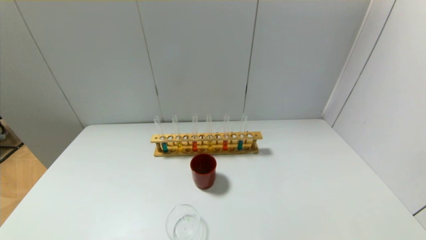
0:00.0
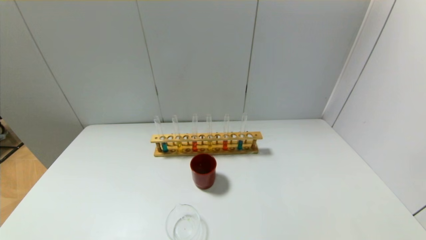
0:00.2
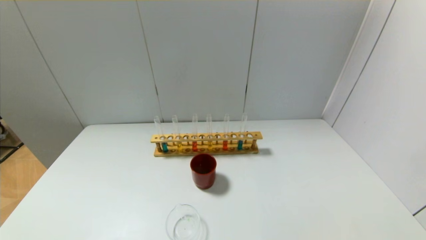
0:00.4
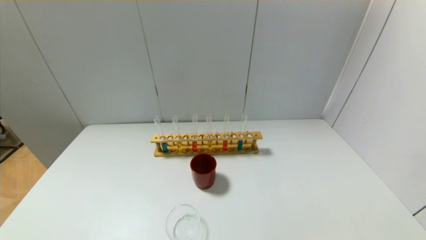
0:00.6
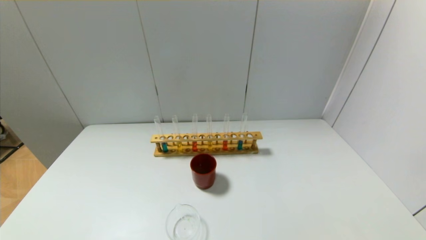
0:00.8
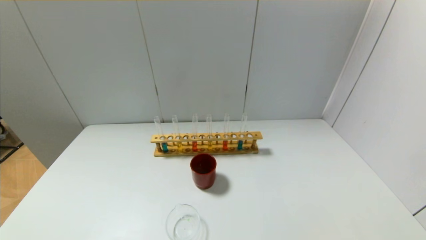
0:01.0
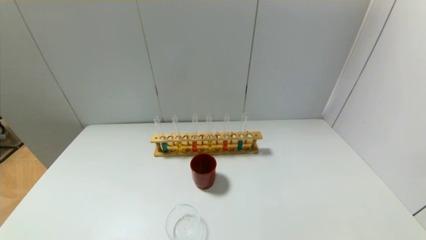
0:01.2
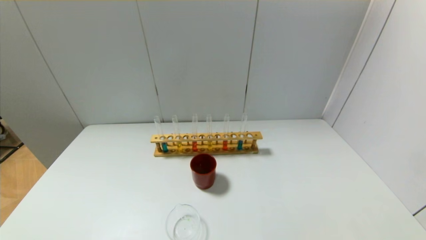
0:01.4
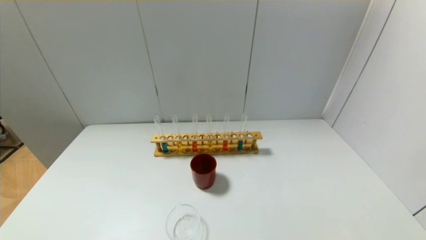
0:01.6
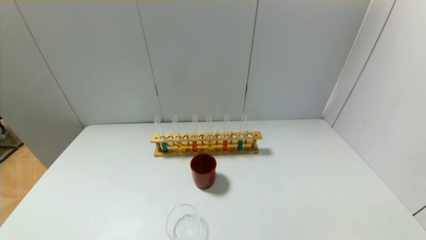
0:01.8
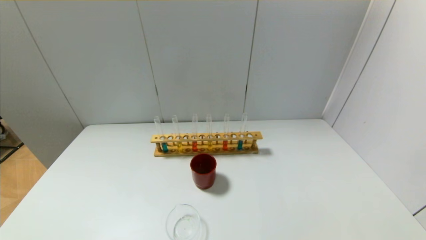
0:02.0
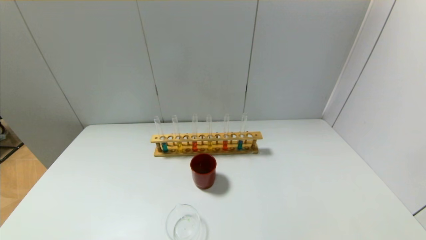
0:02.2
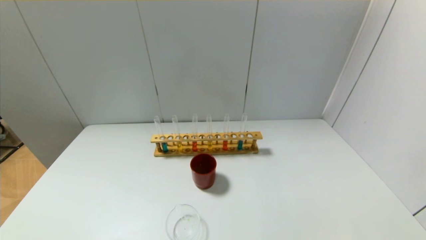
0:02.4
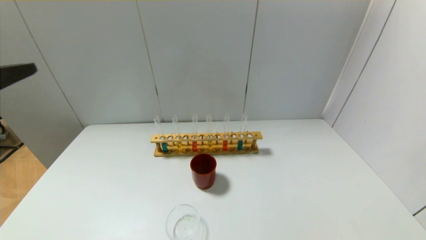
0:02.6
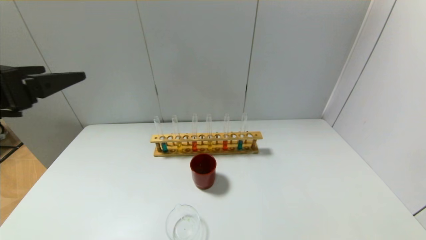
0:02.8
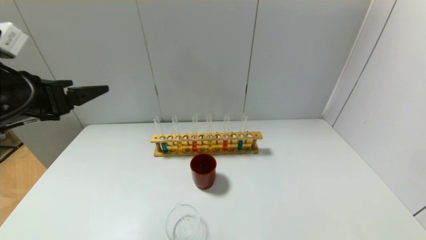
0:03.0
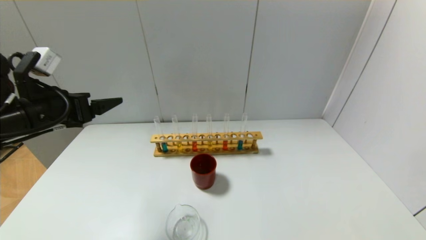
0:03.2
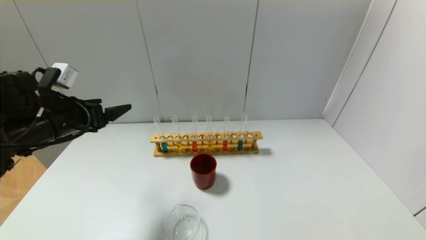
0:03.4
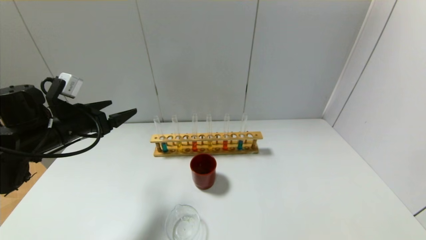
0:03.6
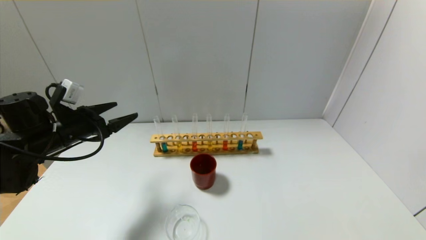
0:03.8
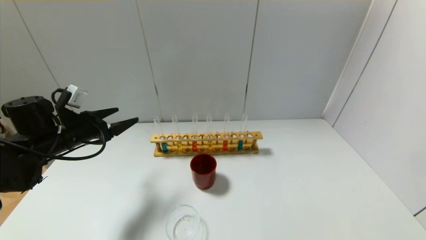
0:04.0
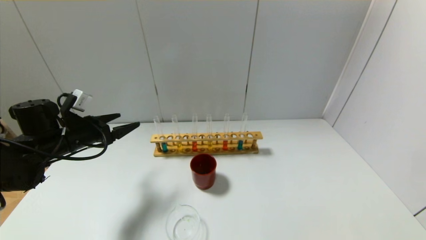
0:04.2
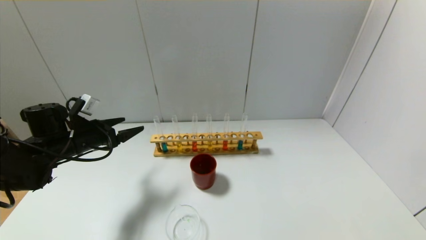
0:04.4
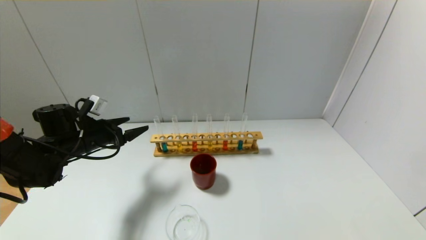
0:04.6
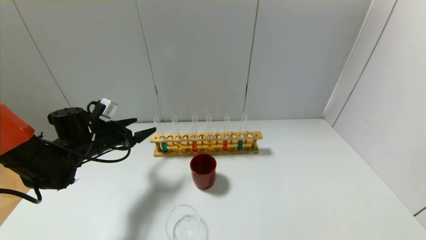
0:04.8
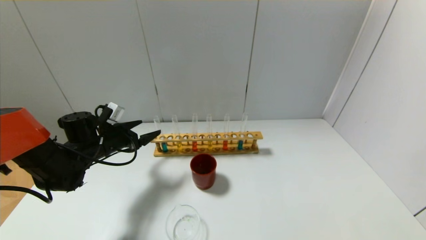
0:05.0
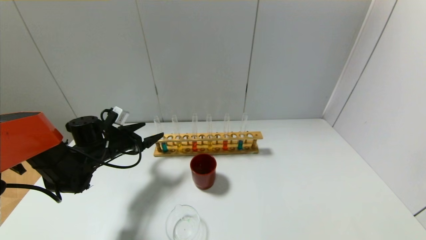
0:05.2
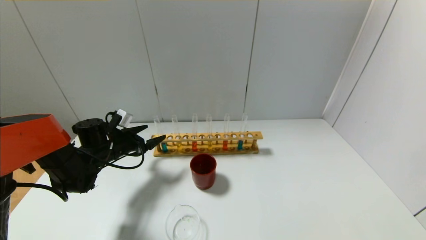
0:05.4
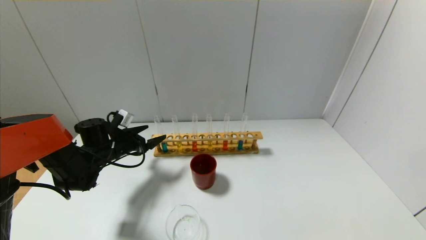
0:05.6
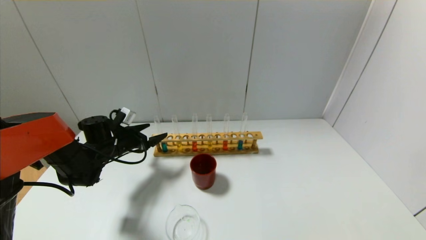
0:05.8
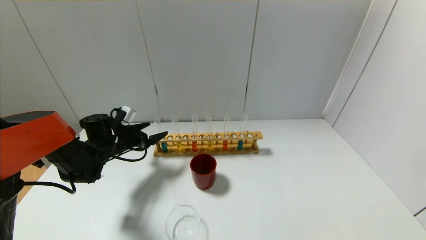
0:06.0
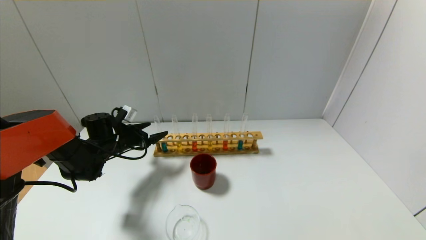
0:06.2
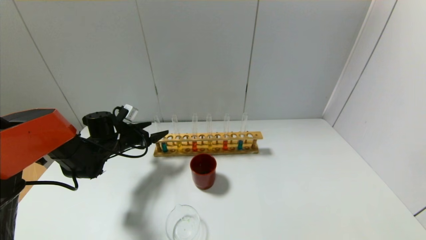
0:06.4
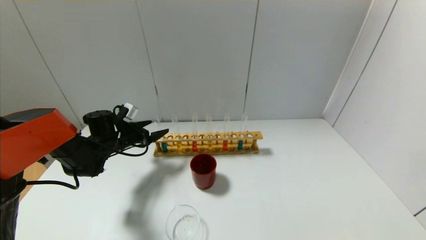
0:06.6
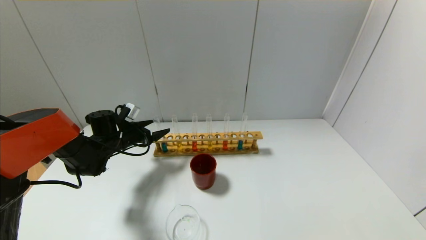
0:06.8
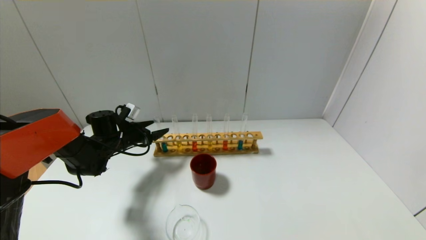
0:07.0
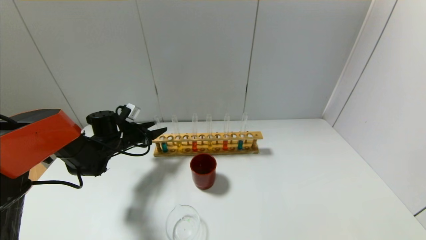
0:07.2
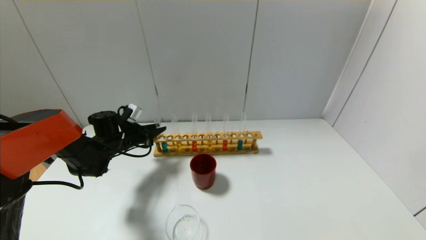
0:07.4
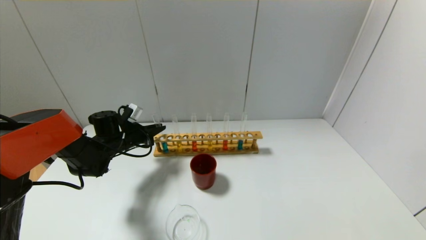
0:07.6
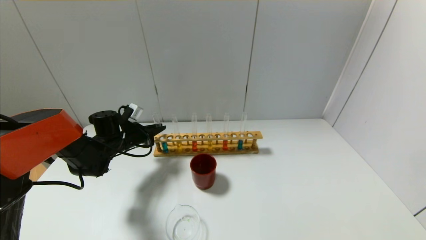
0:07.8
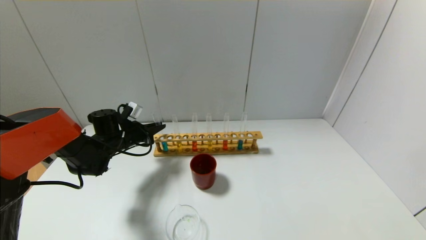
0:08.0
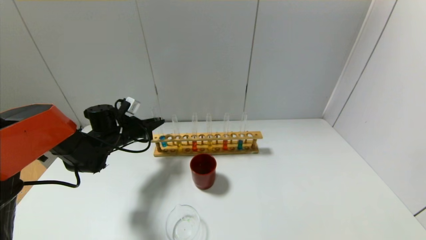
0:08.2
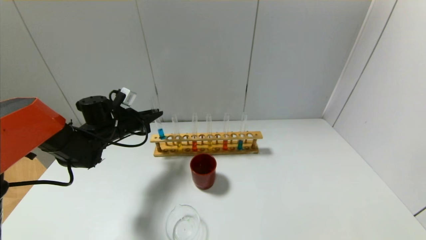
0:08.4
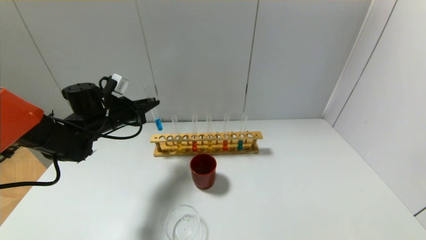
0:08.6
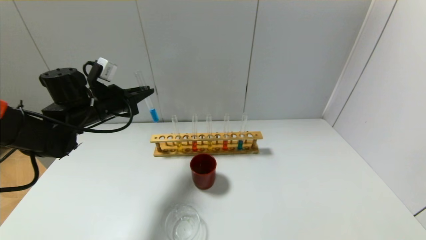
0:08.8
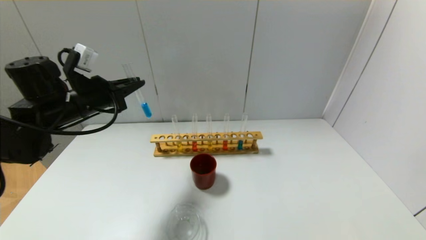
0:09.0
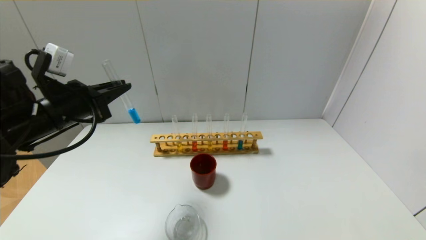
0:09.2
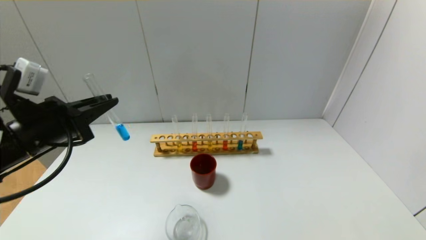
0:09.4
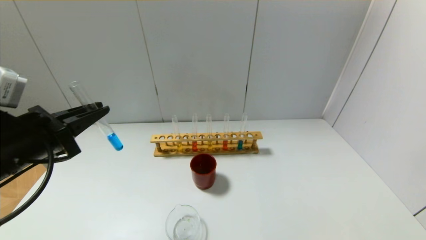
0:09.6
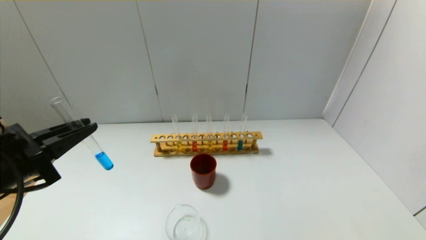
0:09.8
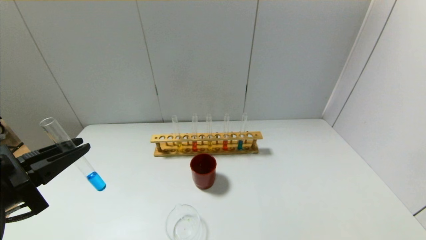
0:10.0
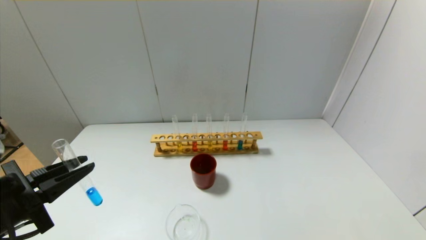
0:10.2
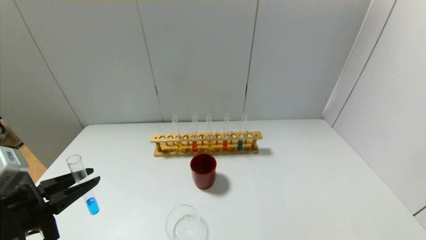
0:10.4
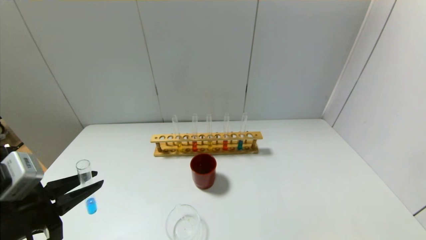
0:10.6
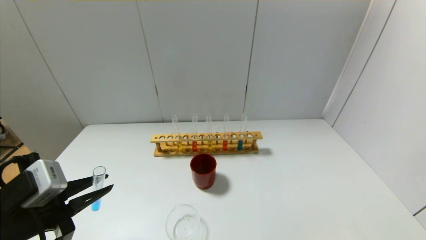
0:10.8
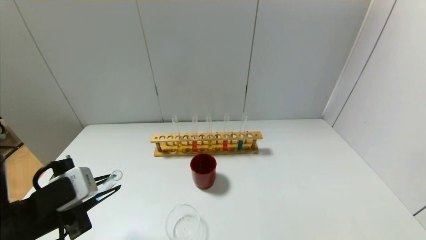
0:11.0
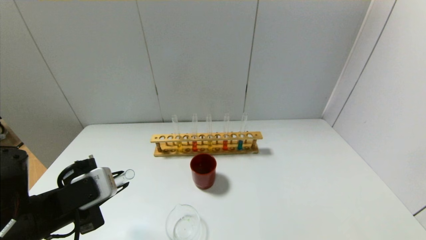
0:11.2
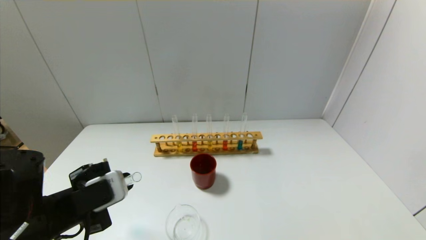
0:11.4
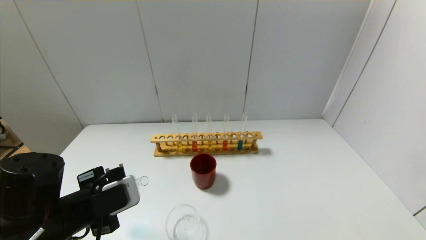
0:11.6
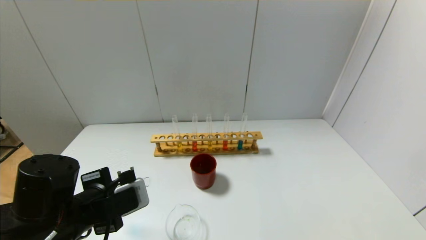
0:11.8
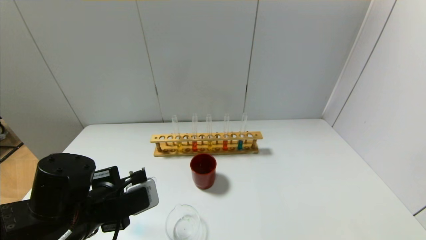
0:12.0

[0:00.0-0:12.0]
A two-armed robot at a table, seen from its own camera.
Step, 0:00.0 to 0:07.6: Grasp the blue reagent with the left gripper.
0:01.6 to 0:03.0: The left gripper goes approximately 30 cm forward and upward.
0:03.0 to 0:04.4: The left gripper heads downward and forward, covering roughly 20 cm.
0:04.4 to 0:06.0: The left gripper is displaced forward and downward by some 10 cm.
0:06.0 to 0:07.6: The left gripper closes up.
0:07.6 to 0:09.0: The left gripper shifts roughly 20 cm upward and backward.
0:09.0 to 0:10.4: The left gripper goes some 20 cm backward.
0:10.4 to 0:12.0: The left gripper heads to the right, covering some 10 cm.

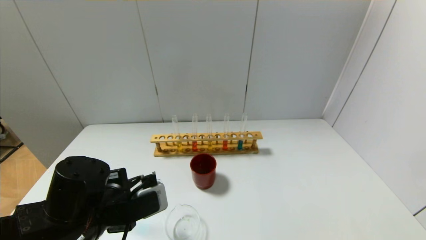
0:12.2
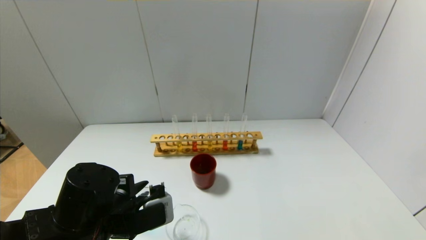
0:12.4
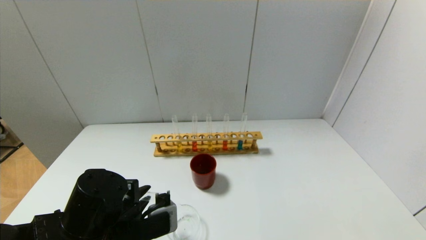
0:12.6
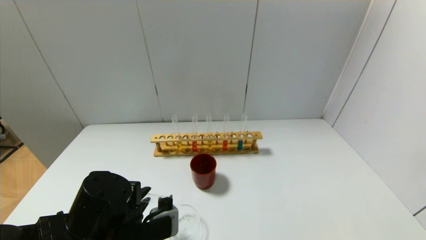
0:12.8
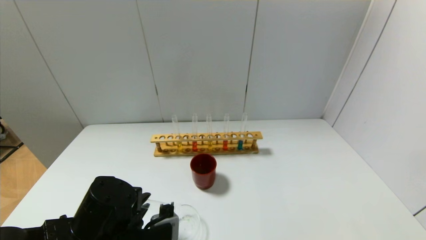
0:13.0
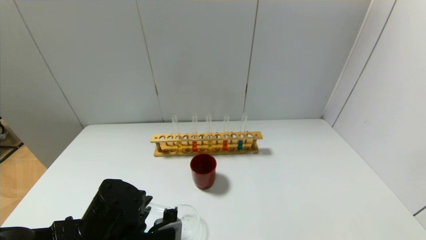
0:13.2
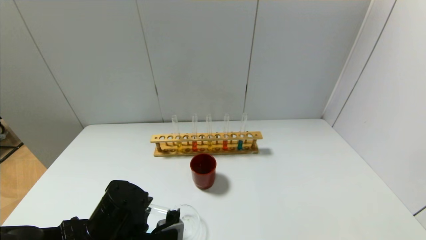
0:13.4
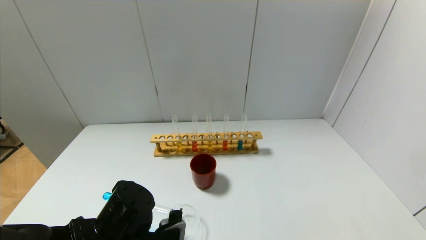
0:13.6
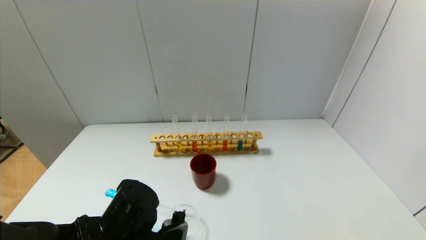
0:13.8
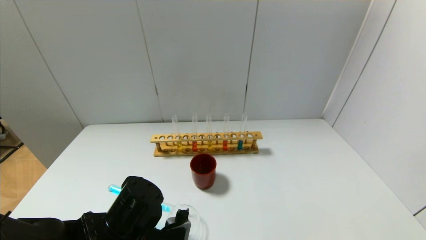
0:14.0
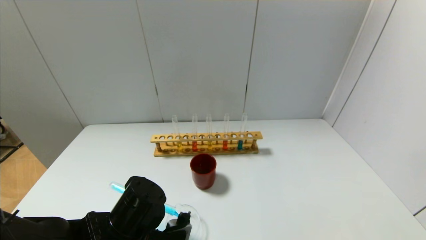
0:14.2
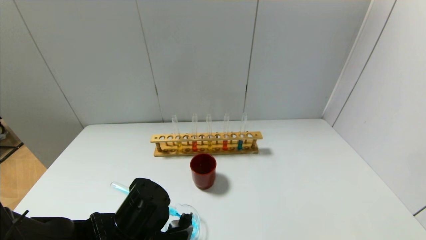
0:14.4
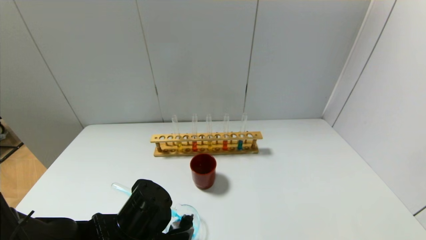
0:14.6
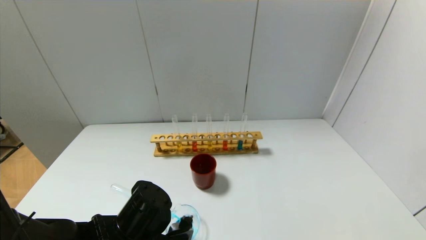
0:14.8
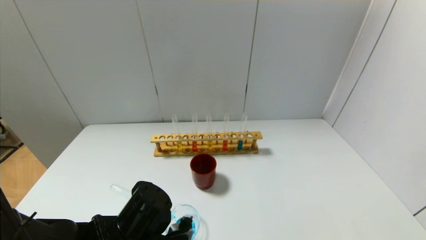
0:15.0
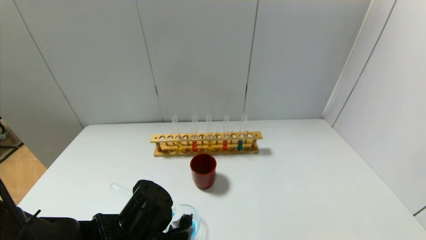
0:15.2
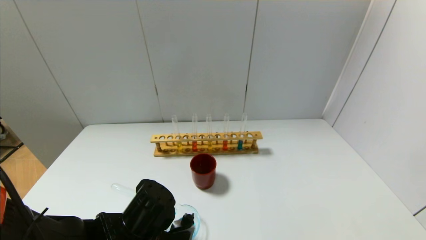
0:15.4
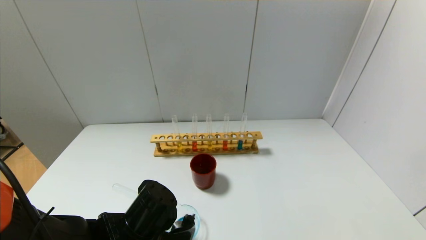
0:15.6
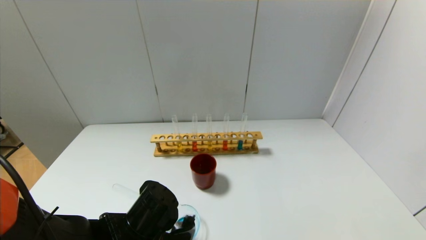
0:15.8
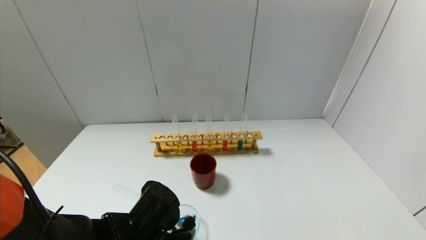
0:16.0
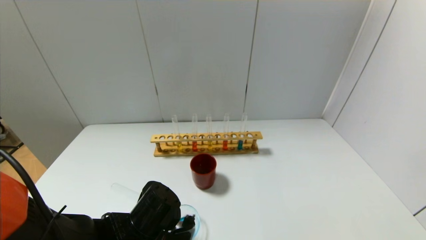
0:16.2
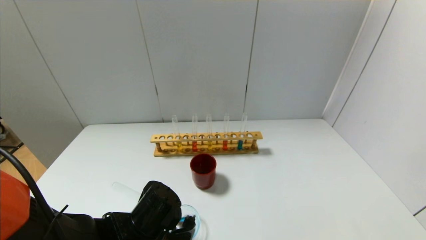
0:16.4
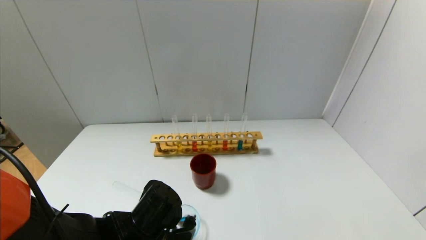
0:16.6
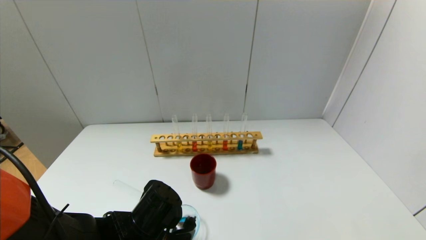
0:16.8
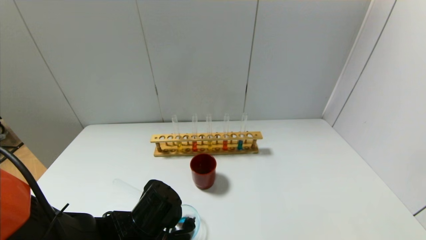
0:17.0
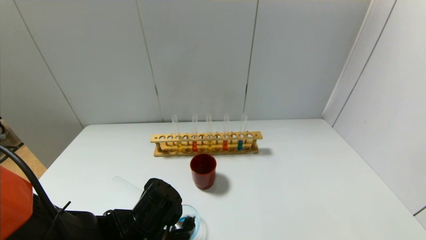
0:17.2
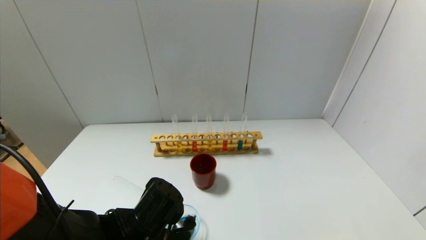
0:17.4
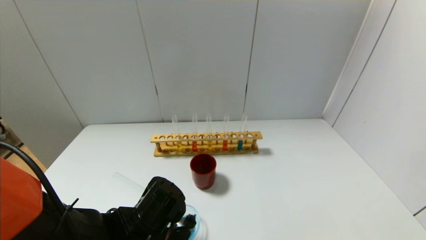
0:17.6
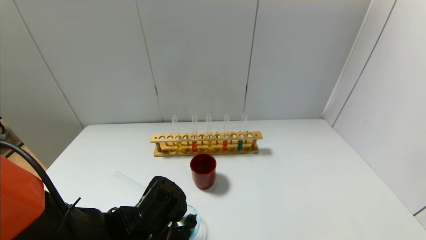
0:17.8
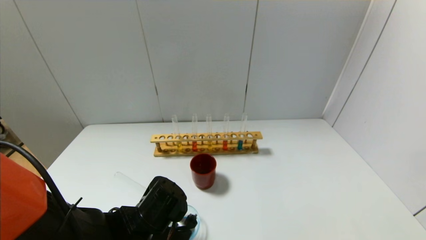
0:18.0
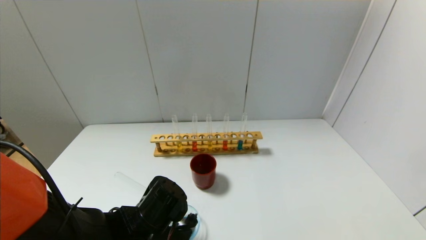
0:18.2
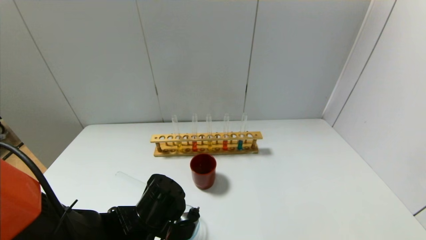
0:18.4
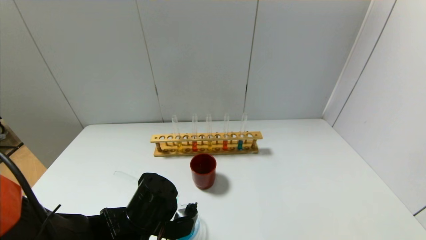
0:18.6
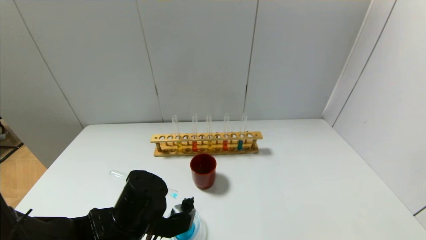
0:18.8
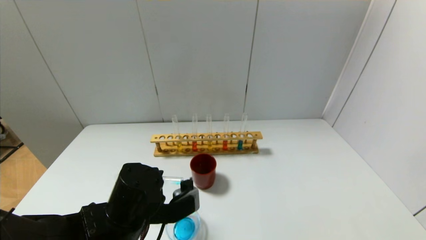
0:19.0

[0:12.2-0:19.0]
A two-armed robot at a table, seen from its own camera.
Step, 0:12.2 to 0:18.6: Pour the blue reagent into the graduated cylinder with the left gripper.
0:13.6 to 0:16.2: The grippers make only small movements.
0:16.2 to 0:17.6: The grippers move only a little.
0:17.6 to 0:19.0: The left gripper is displaced upward by approximately 5 cm.
